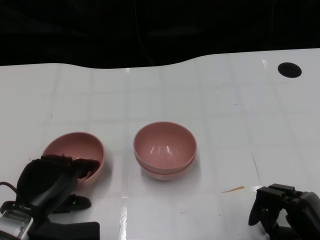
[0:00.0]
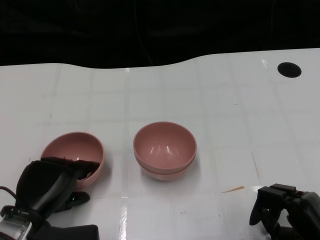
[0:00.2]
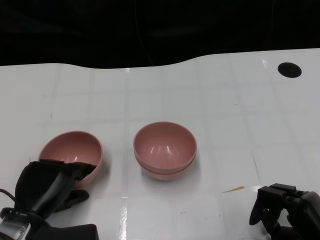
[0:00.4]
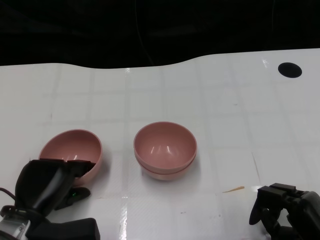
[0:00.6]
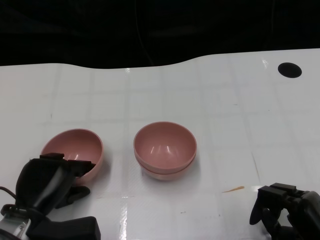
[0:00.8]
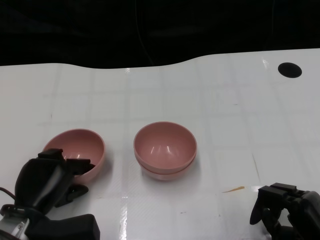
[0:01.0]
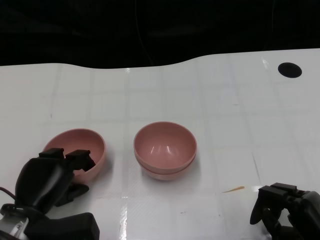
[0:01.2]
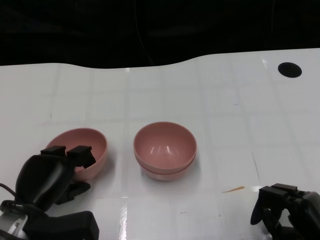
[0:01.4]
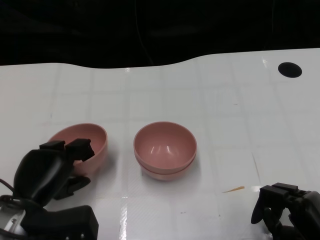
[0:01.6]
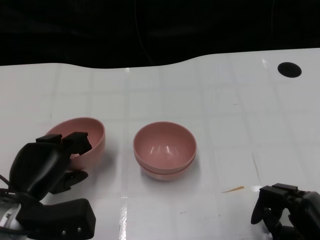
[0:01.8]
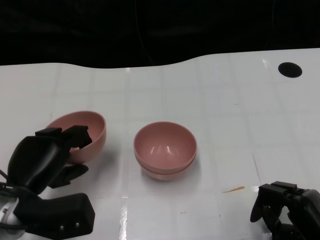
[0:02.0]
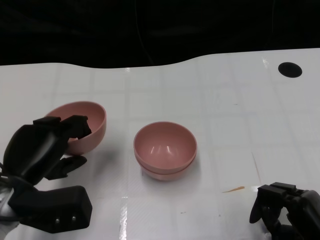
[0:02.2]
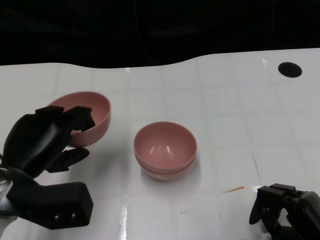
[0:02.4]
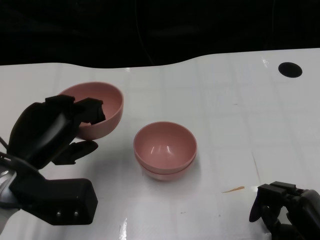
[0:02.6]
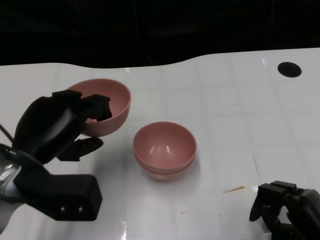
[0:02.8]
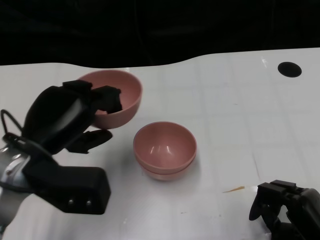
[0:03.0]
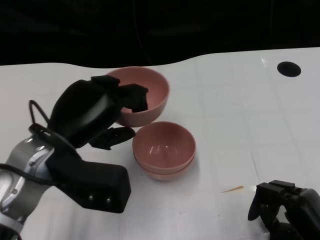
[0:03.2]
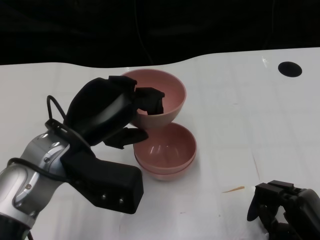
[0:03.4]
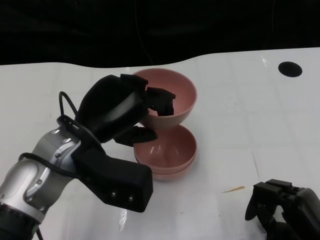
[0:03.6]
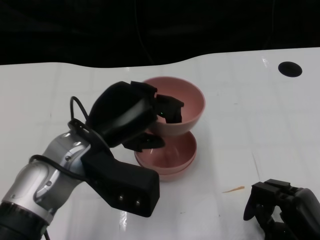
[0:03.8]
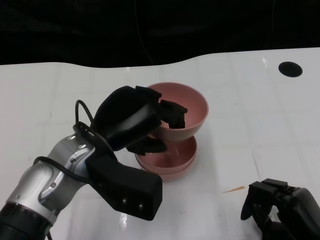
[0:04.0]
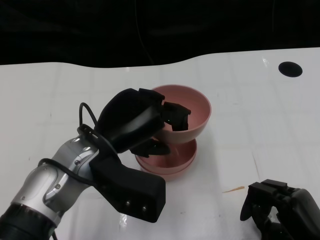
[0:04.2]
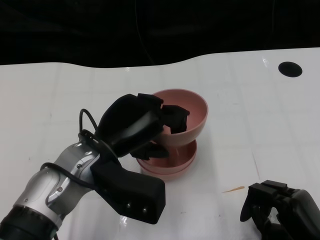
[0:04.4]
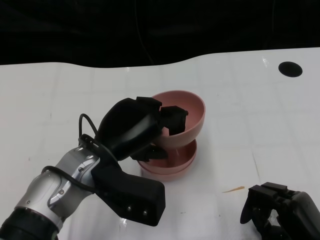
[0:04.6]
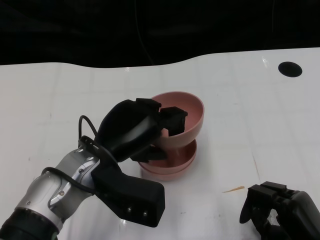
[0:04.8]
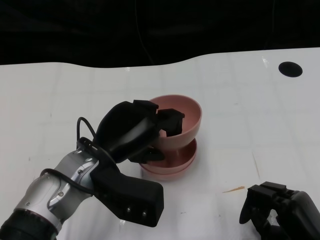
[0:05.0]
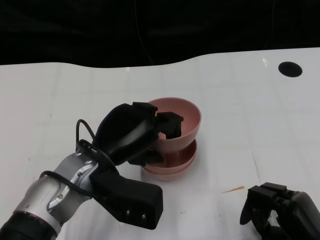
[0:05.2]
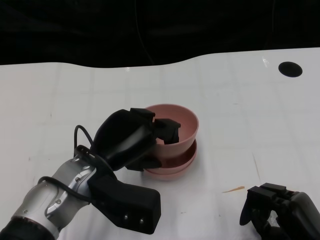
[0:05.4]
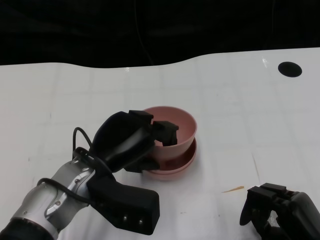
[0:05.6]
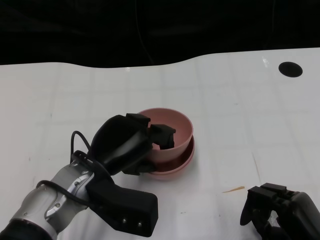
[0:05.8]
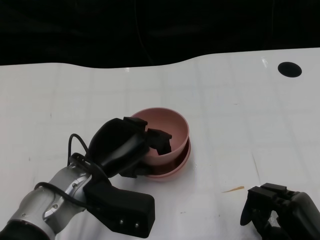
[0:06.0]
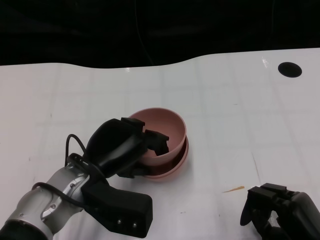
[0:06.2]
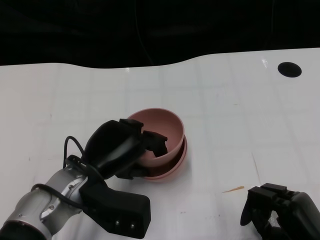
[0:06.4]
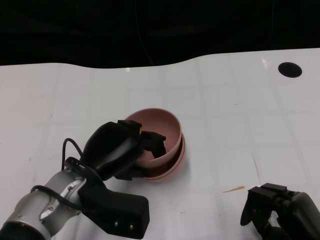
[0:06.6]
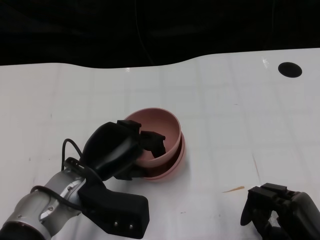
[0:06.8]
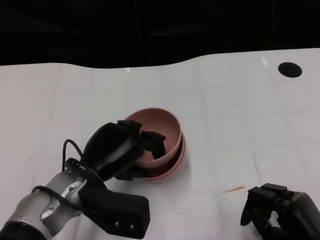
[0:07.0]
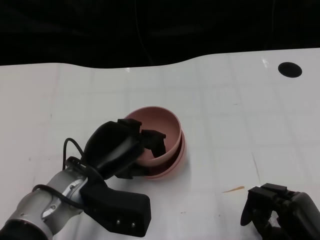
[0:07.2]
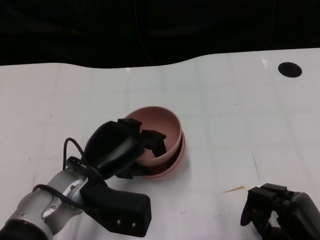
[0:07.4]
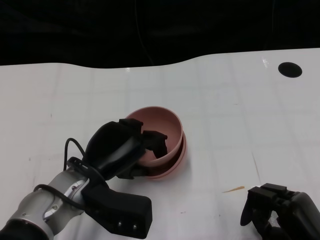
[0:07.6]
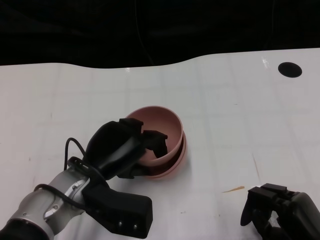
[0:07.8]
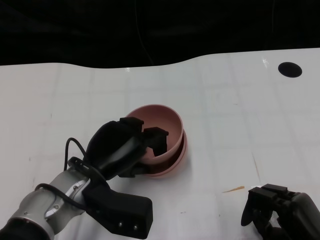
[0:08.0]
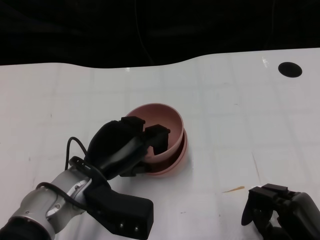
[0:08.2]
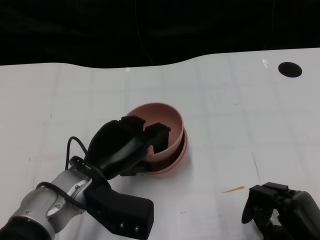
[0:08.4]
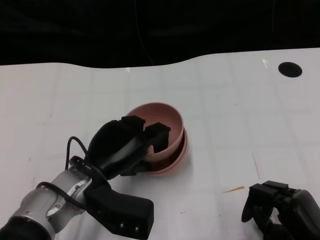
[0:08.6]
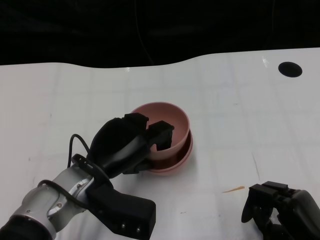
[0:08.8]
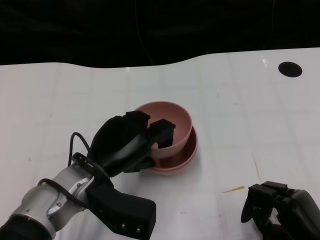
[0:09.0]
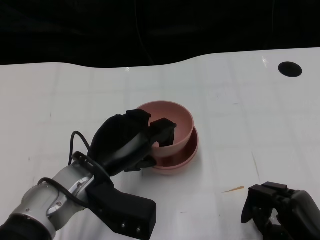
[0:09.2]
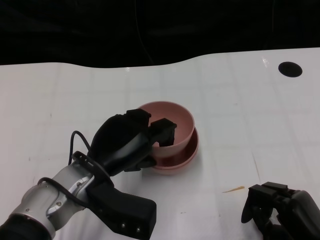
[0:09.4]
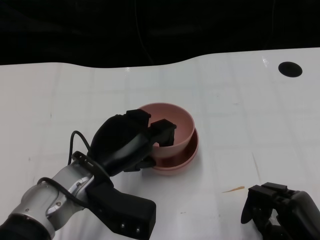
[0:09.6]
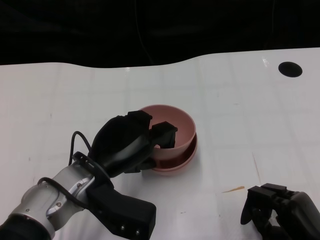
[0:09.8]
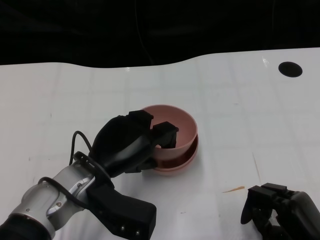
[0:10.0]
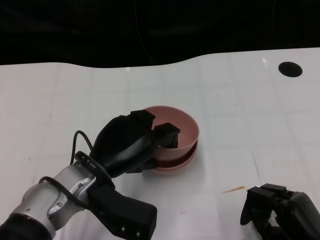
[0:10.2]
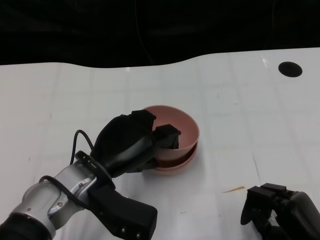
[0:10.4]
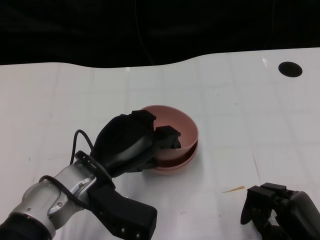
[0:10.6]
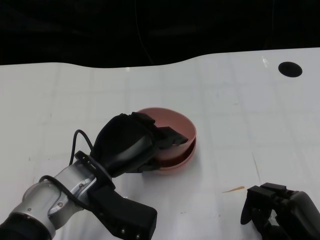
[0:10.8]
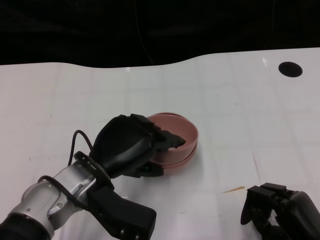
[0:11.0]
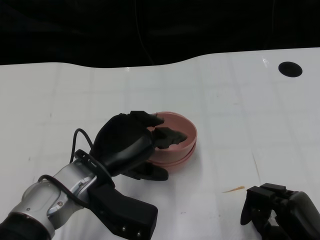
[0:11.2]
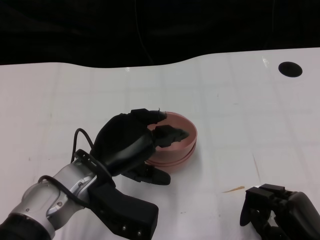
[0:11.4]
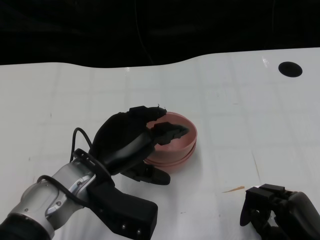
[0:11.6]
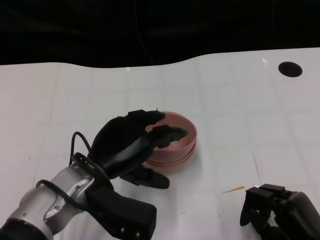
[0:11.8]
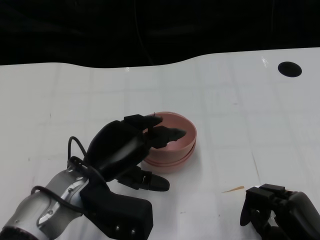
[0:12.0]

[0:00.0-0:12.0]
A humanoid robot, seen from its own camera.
Task of the whole recording: Pick up the bowl on one side of the table and place it on top of the middle bowl, then pick up the bowl on the other side of the table and place it on top of the middle bowls.
0:00.0 to 0:01.6: The hands move only a little.
0:01.6 to 0:03.0: The left hand moves upward, about 10 cm.
0:03.0 to 0:04.4: The left hand moves to the right, roughly 10 cm.
0:06.0 to 0:07.6: Both hands stay about where they are.
0:07.6 to 0:09.0: There are only small adjustments of the hands.
0:09.0 to 0:10.4: Neither hand changes place.
0:10.4 to 0:12.0: The hands make only small movements.

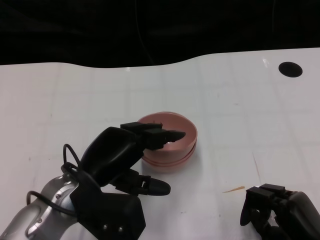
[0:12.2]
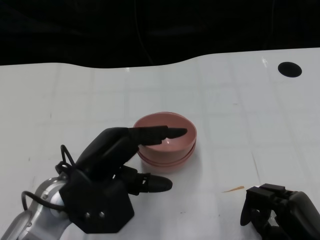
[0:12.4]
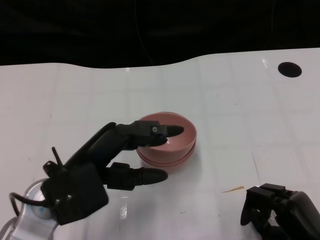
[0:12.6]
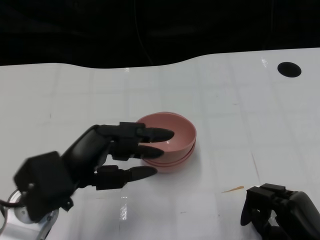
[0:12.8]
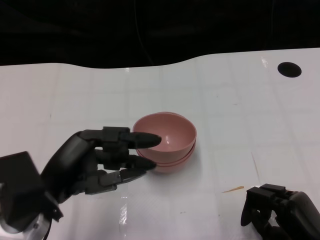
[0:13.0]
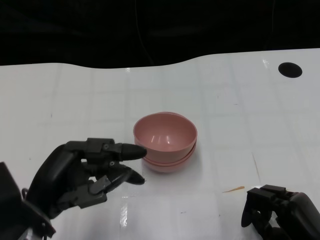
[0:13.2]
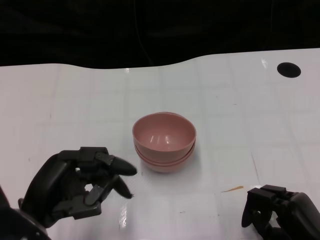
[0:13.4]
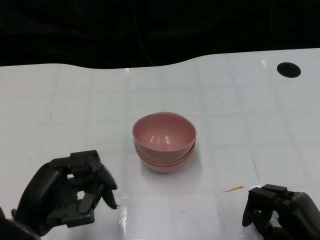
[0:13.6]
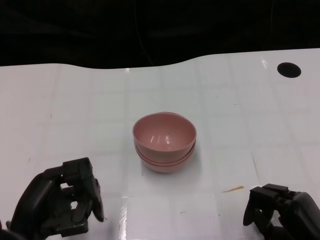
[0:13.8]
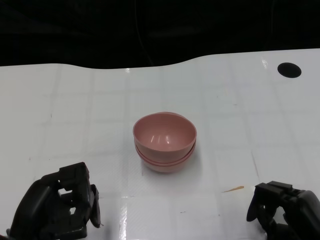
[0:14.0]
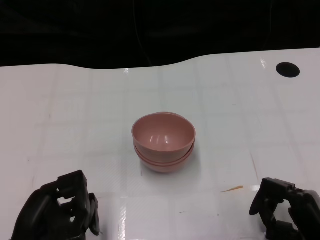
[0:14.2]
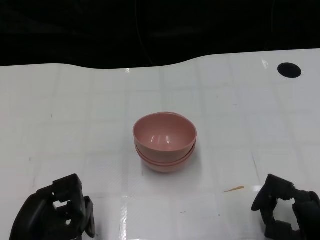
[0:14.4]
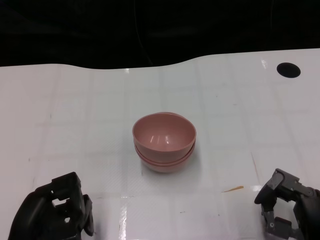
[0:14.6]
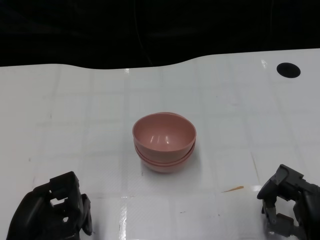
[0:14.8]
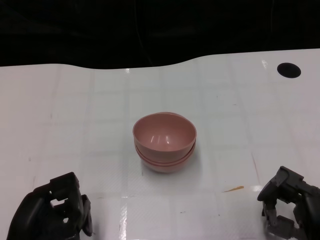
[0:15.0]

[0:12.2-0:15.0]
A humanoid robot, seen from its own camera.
Task of the whole recording: Pick up the bowl on one side of the table and place it on top of the middle bowl, then pick up the bowl on the other side of the table and place it on top of the middle bowls.
0:12.2 to 0:13.6: The left hand shifts approximately 10 cm to the left and backward.
0:13.6 to 0:15.0: The left hand heads downward, covering roughly 5 cm.
